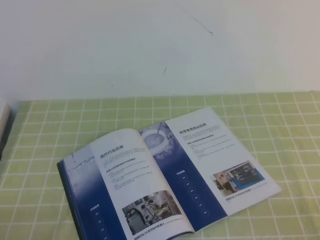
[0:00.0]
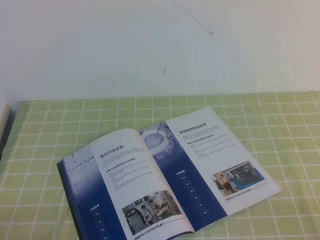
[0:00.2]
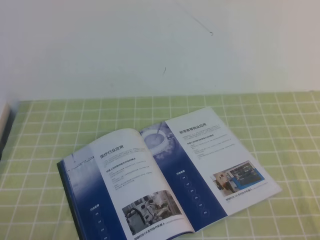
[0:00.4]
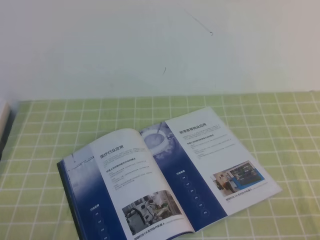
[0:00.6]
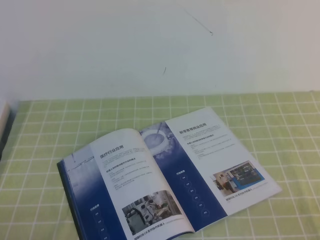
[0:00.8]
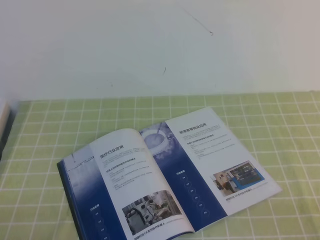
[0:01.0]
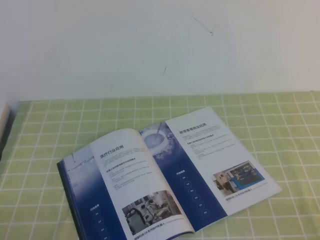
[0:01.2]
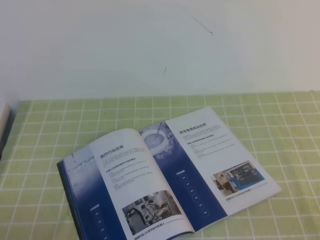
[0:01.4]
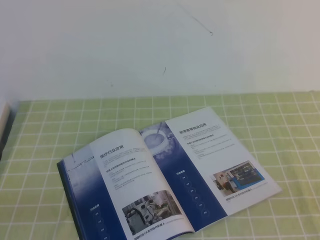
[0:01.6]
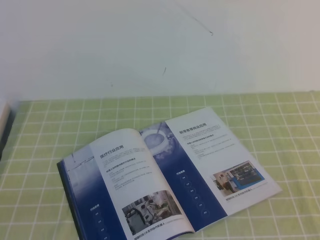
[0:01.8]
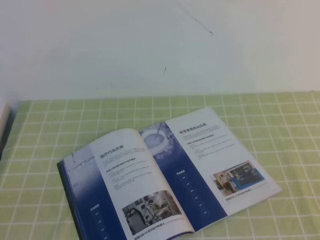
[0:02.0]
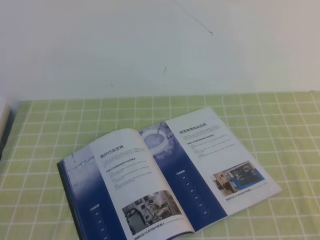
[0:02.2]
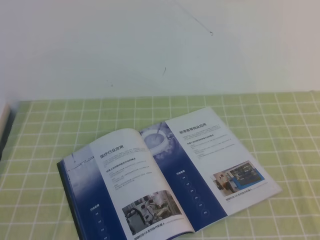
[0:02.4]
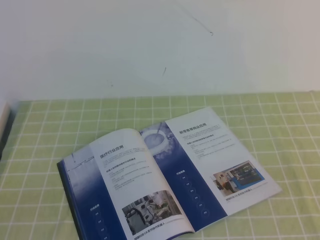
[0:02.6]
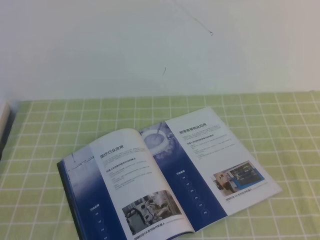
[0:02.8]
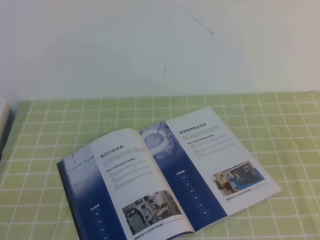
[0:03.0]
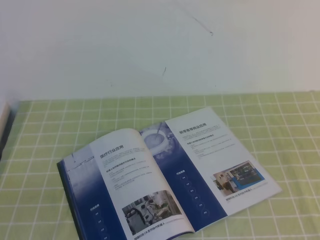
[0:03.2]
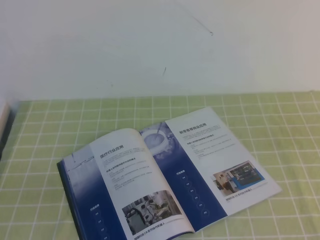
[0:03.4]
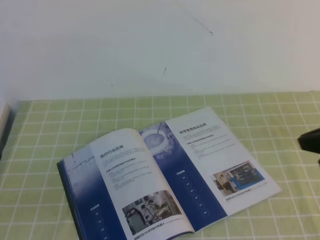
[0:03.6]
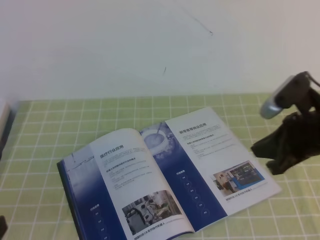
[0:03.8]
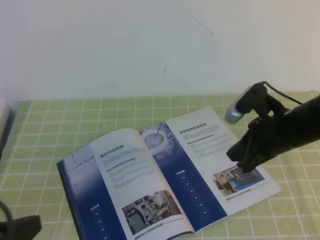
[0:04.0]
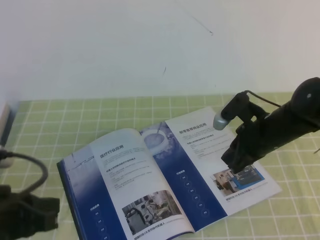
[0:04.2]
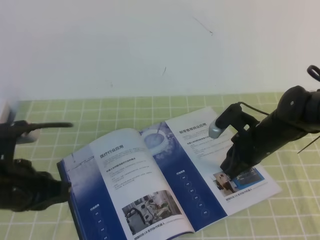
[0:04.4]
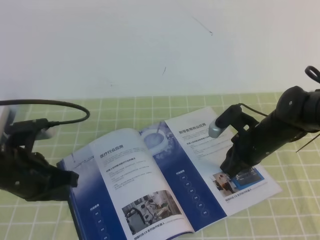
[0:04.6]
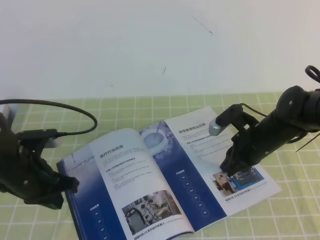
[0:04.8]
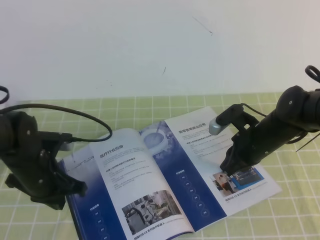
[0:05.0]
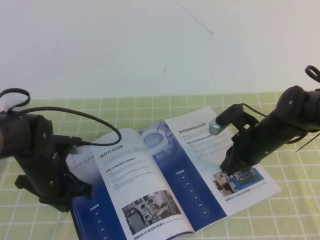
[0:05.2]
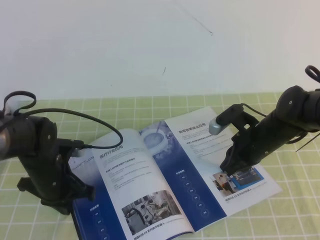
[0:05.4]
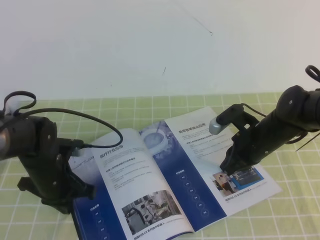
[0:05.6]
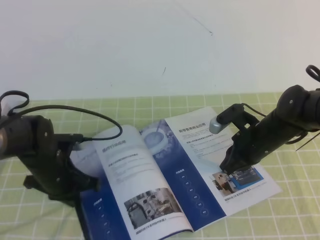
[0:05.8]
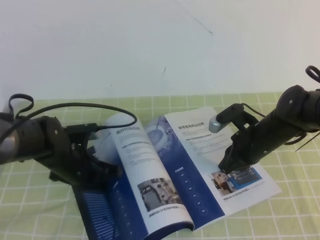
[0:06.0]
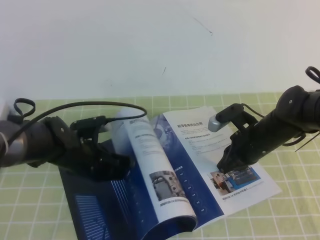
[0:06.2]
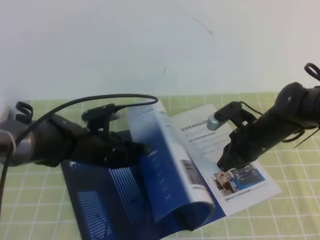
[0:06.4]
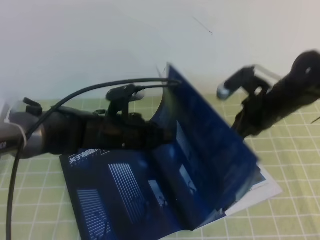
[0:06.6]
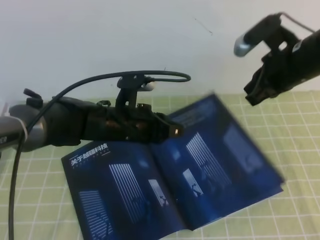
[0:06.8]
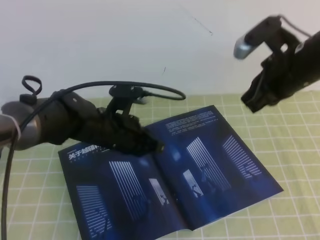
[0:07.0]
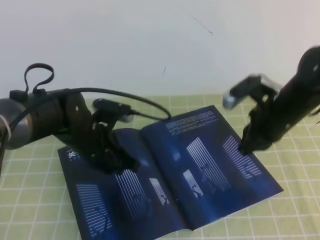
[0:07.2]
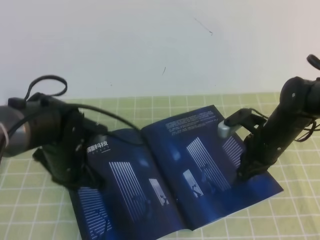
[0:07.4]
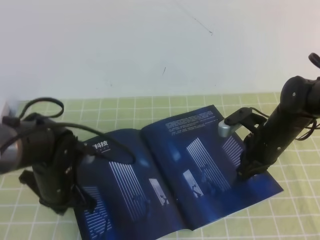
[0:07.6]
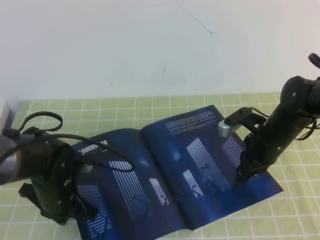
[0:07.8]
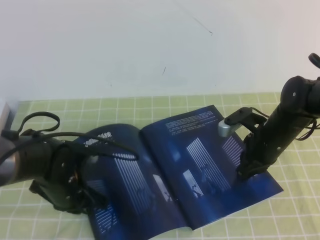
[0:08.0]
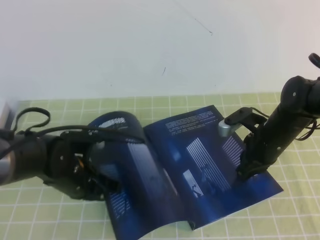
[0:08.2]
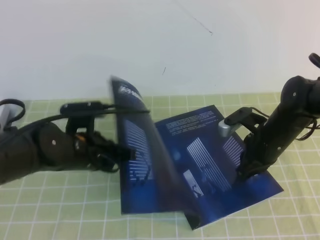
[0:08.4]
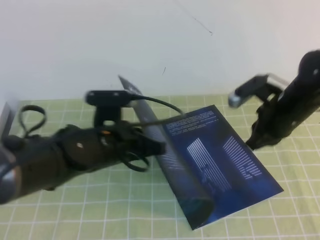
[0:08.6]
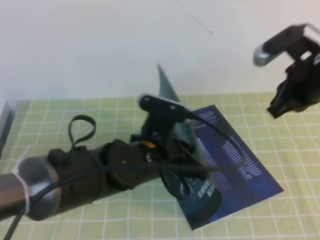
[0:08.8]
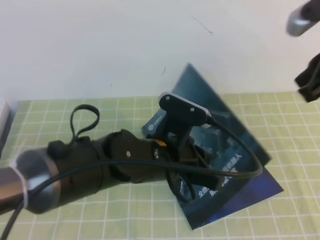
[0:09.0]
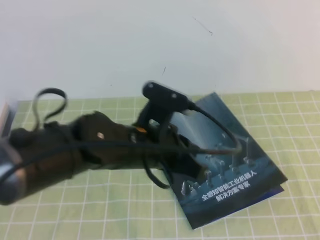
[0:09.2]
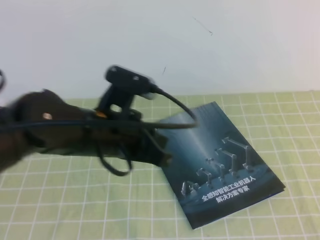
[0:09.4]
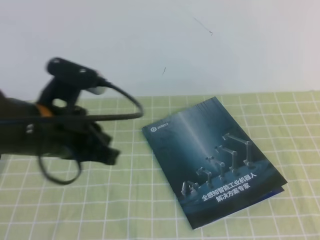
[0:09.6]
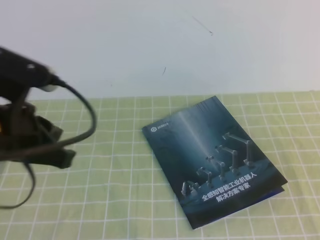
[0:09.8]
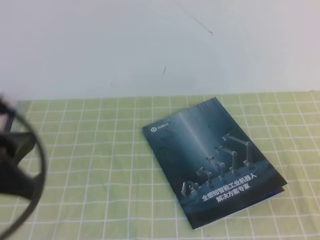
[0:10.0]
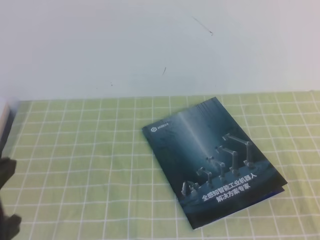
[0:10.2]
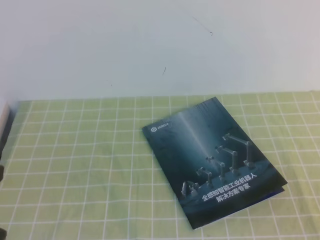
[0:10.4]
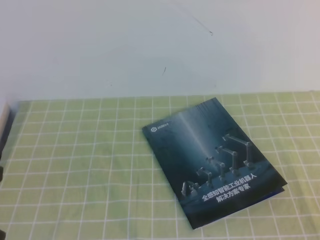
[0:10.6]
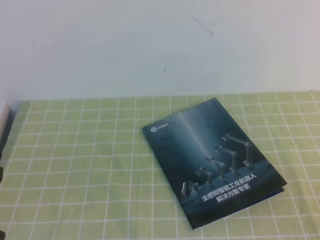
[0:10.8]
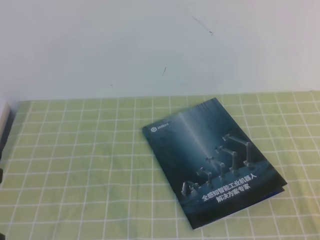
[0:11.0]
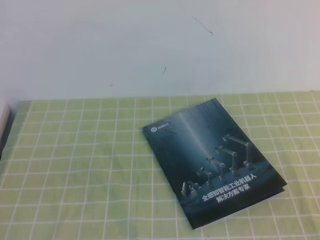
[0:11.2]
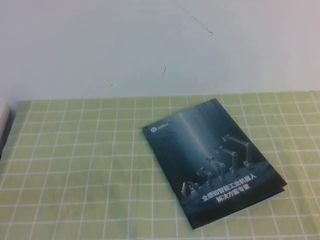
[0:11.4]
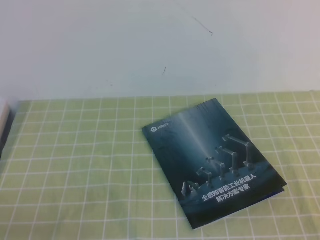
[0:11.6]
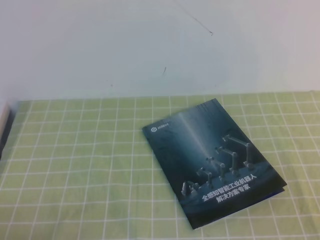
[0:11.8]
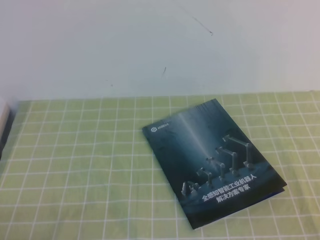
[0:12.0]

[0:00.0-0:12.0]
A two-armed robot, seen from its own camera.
Task of the whole recording: on the green tablecloth, hold the book with one hand and close it with the other.
0:03.0 to 0:04.4: The left gripper shifts about 15 cm forward, while the right gripper goes some 40 cm forward, downward and to the left.
0:04.4 to 0:06.0: The left gripper moves forward, downward and to the right, roughly 20 cm.
0:06.0 to 0:07.6: The left gripper goes to the right and returns, roughly 10 cm each way. The right gripper moves about 15 cm upward and comes back.
0:07.6 to 0:09.0: The left gripper goes some 15 cm to the right and upward, while the right gripper travels upward by some 25 cm.
0:09.0 to 0:10.4: The left gripper shifts some 30 cm to the left, backward and upward, while the right gripper moves backward and downward, some 25 cm.

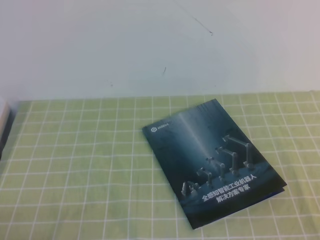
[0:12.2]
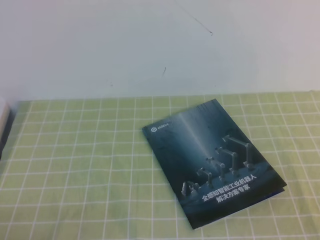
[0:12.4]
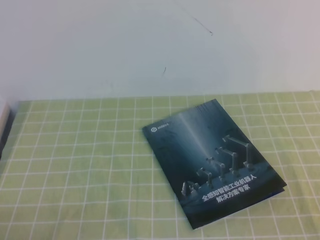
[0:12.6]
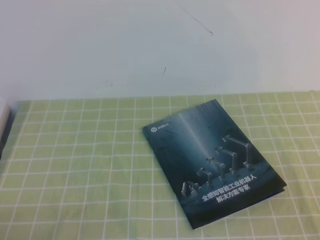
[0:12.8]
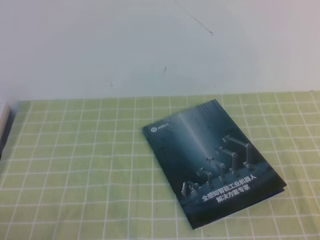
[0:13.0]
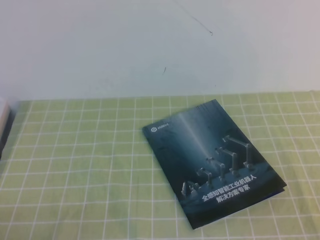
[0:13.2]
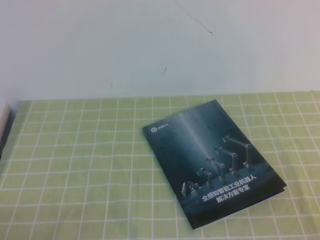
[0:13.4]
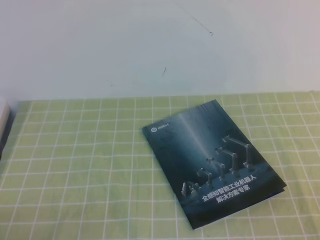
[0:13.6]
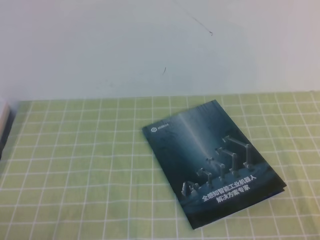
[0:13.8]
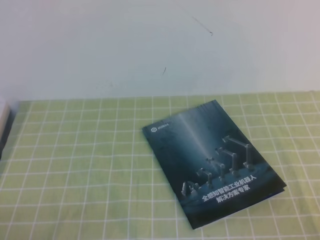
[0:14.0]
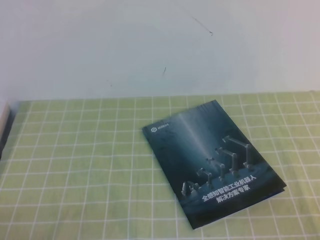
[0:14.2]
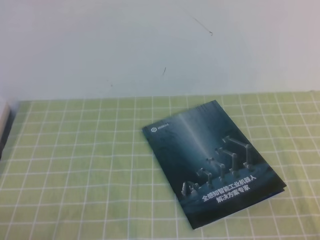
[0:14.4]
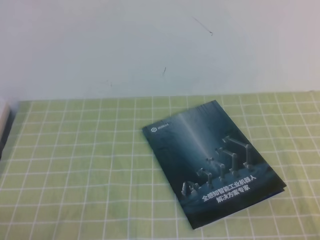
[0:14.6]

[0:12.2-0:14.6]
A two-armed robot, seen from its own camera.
Task of the whole recording: on the green tablecloth, hold the book with one hand and close it with the other.
0:12.2 to 0:13.4: Both grippers stay about where they are.
